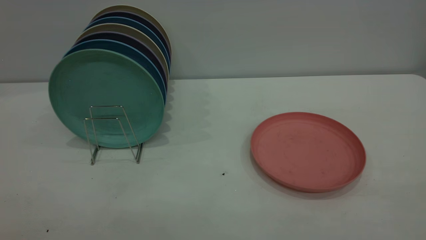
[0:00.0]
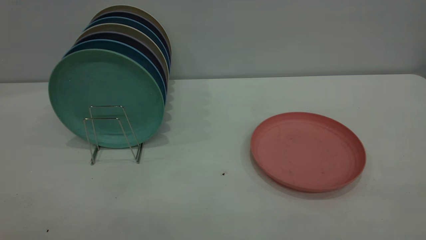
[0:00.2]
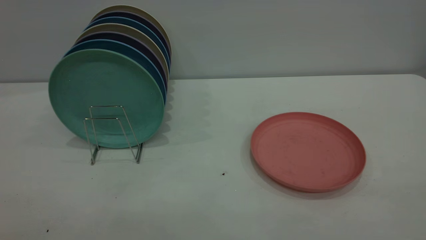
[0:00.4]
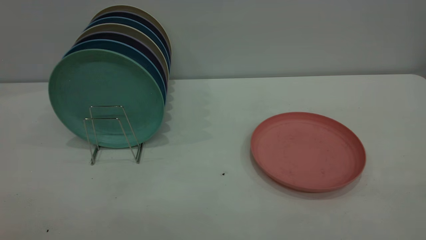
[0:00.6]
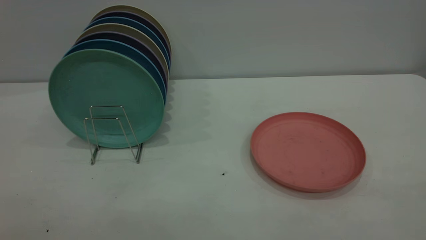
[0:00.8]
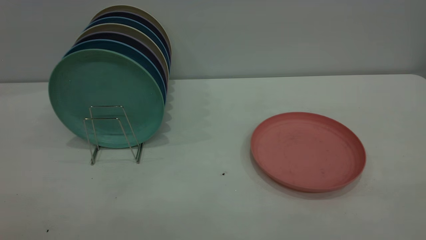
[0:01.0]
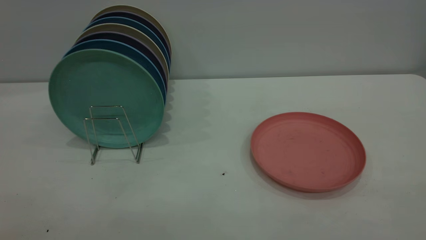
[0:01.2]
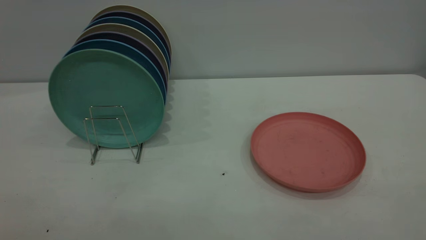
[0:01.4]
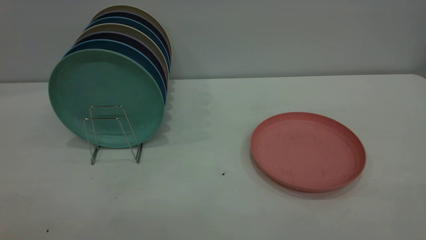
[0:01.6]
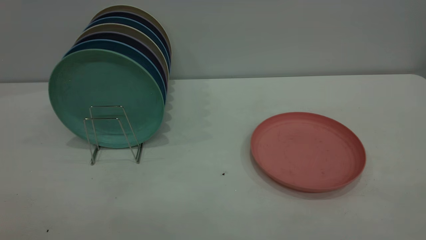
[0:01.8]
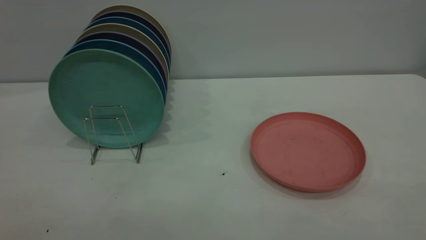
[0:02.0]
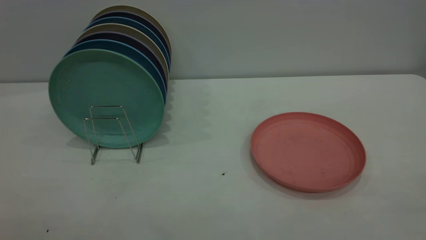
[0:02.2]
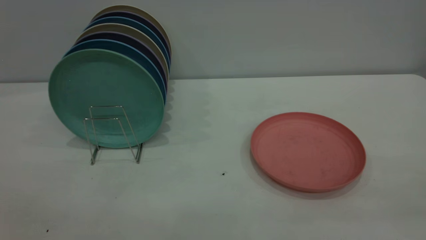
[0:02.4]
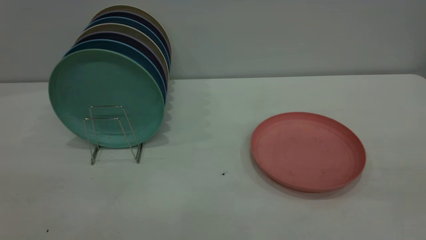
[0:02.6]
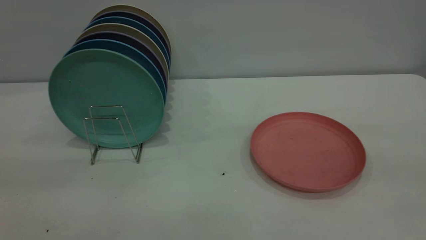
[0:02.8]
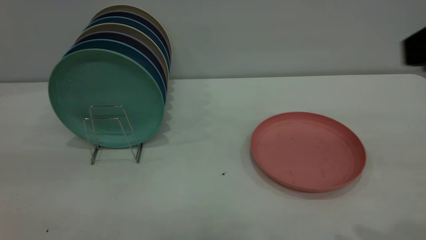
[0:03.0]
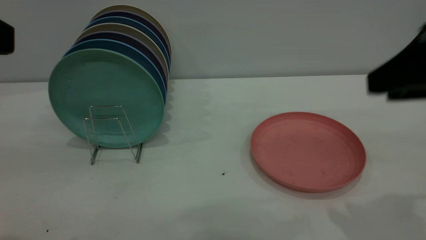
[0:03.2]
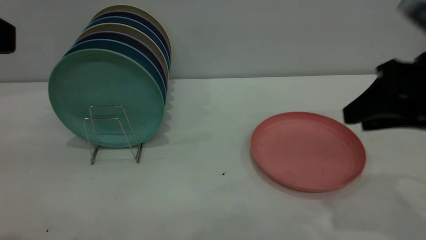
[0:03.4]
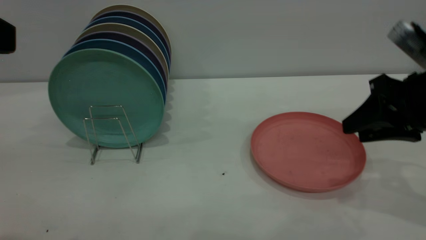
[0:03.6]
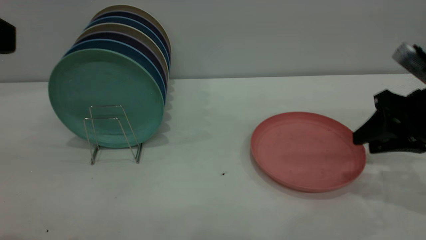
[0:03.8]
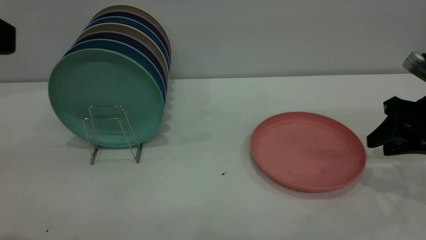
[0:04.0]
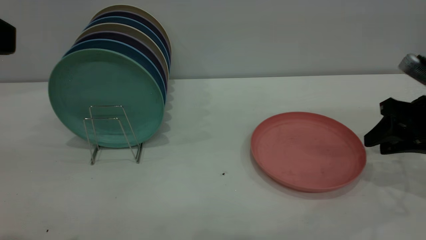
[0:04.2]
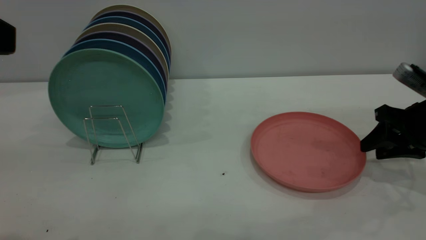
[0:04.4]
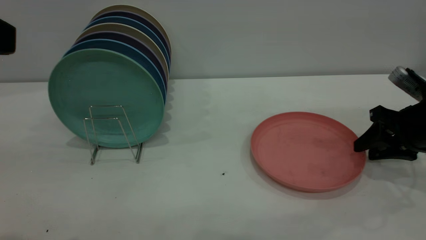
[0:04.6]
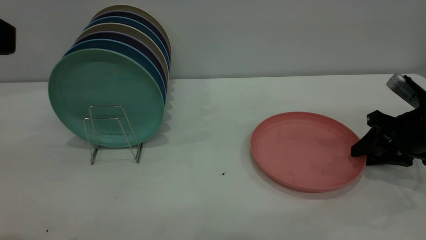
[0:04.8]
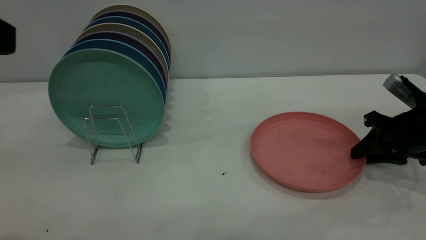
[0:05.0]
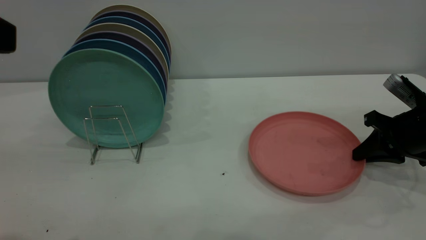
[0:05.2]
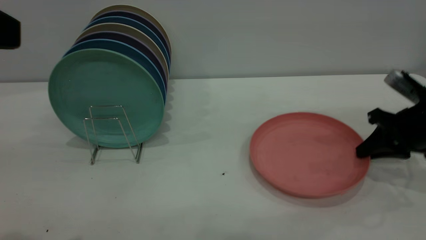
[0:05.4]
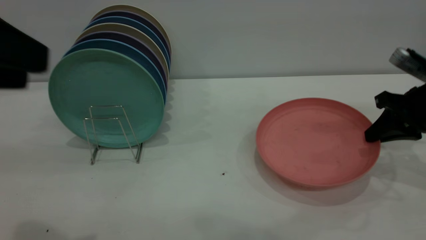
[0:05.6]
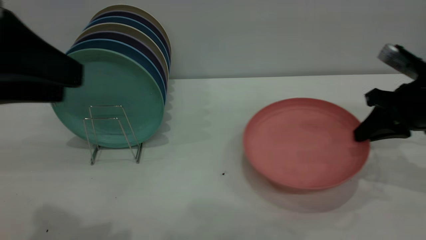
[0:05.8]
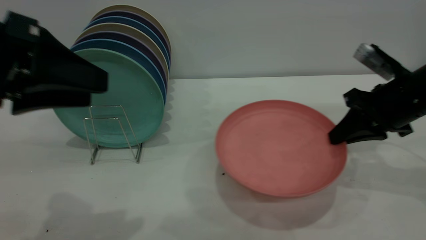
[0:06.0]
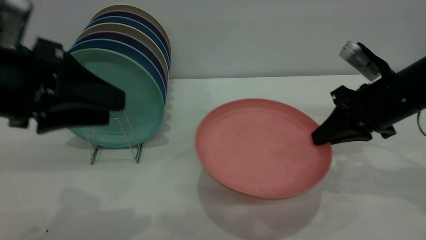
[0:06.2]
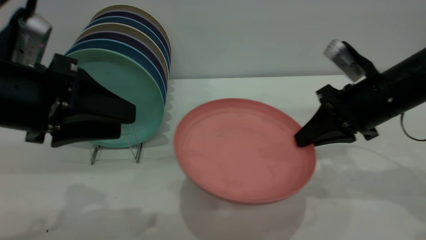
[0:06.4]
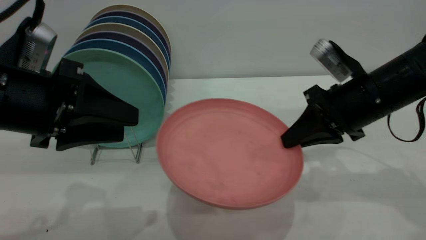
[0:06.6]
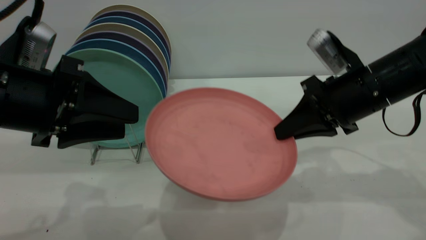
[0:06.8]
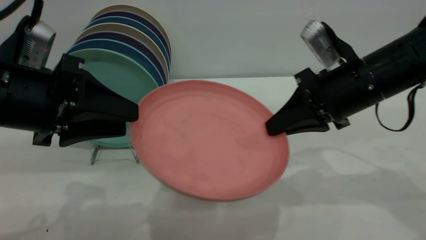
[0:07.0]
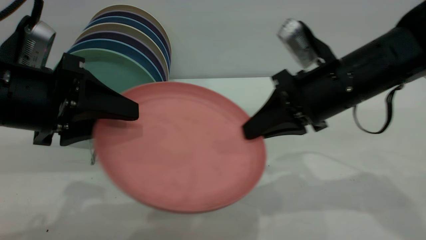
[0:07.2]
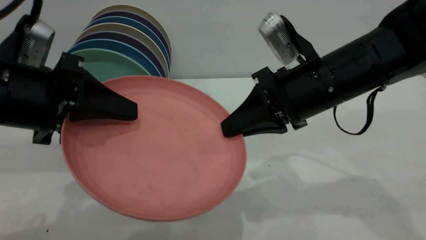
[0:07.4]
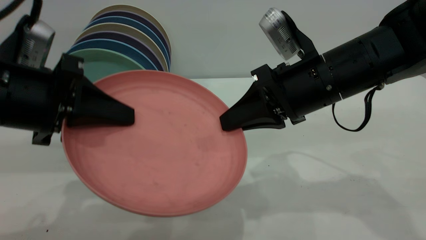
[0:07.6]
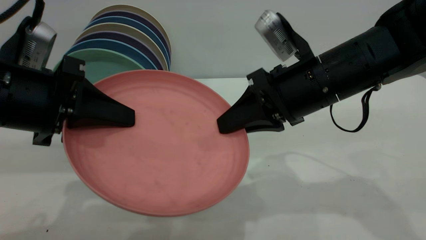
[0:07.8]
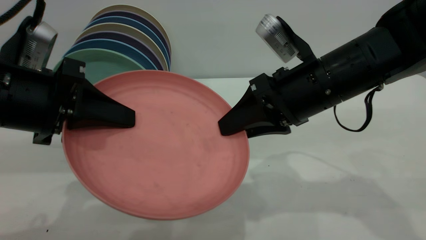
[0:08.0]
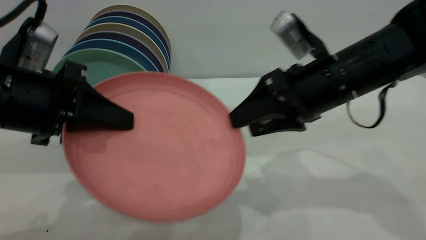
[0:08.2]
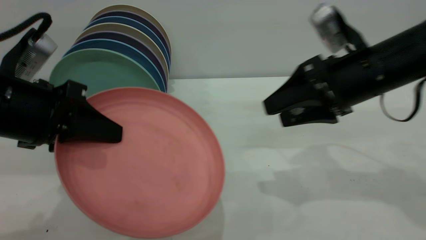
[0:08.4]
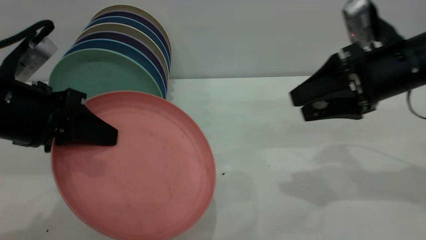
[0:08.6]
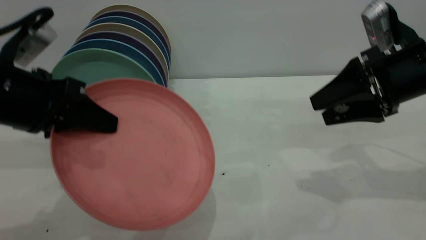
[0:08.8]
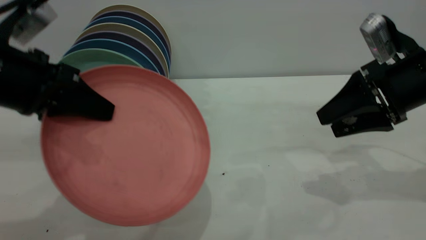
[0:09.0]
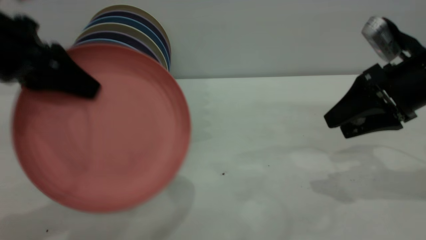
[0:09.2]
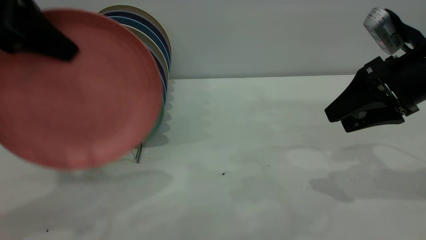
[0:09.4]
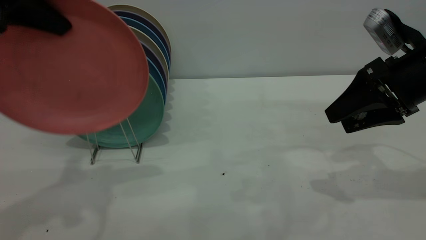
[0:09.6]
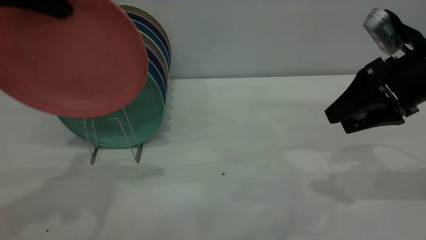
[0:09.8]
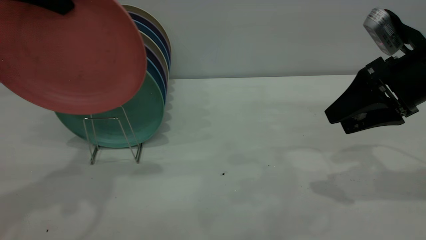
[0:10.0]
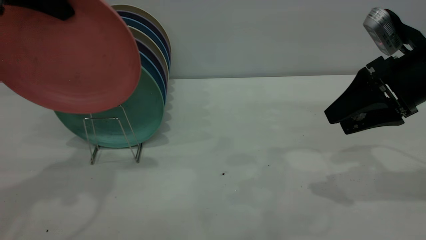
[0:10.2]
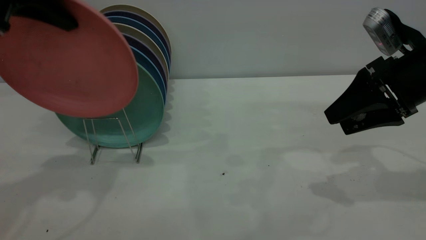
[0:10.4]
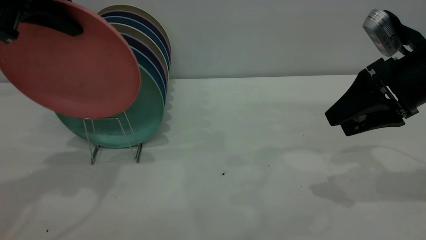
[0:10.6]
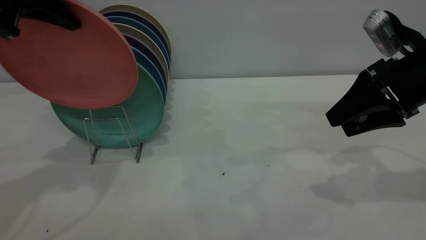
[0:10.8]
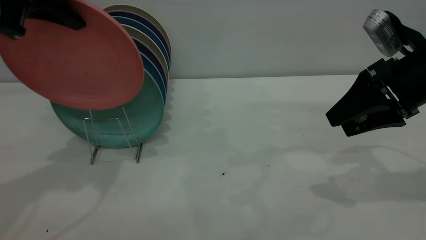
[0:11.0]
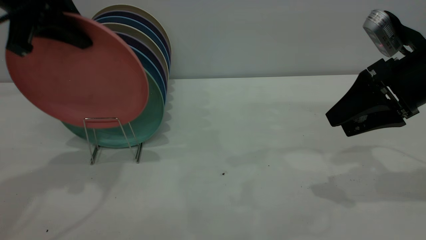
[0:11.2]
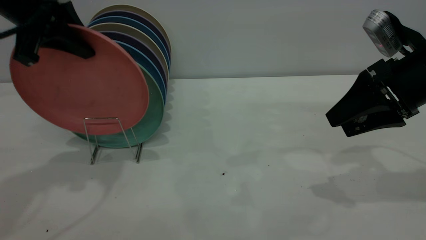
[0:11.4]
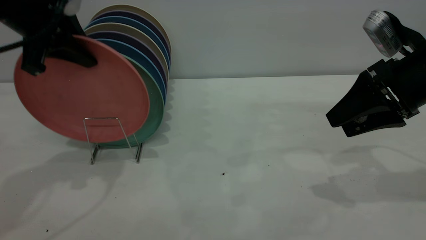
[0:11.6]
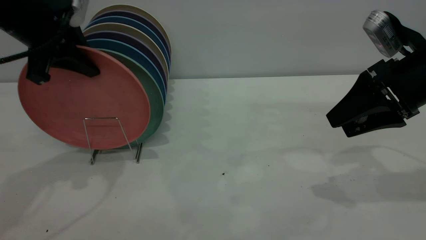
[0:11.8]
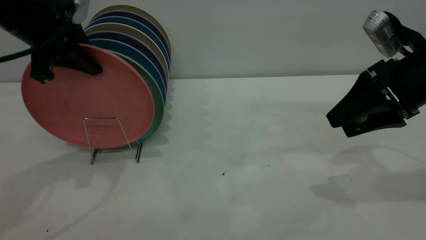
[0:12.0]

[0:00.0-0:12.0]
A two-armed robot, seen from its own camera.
Task of the whole recording: the right gripper grasp the pink plate, the right gripper pass the pink plate to the left gripper, and the left gripper place the pink plate on the plate rack.
Step, 0:00.0 to 0:06.0: Pick up the plate with the right gripper.
Step, 0:06.2 to 0:09.2: Pass the plate from the right gripper to the left gripper.
0:00.0 to 0:01.6: Both grippers stay put.
0:01.6 to 0:03.0: The right gripper is displaced forward by roughly 20 cm.
0:03.0 to 0:04.4: The right gripper shifts approximately 25 cm downward and forward.
0:04.4 to 0:06.0: The right gripper moves to the left, about 5 cm, and closes. Meanwhile the left gripper heads downward and forward, covering some 10 cm.
0:06.0 to 0:07.6: The left gripper heads downward, covering some 5 cm, and closes up. Meanwhile the right gripper heads to the left, covering roughly 15 cm.
0:07.6 to 0:09.0: The right gripper shifts about 15 cm to the right, and opens up.
0:09.0 to 0:10.4: The left gripper is displaced upward and forward by about 15 cm.
0:10.4 to 0:12.0: The left gripper shifts approximately 5 cm downward.

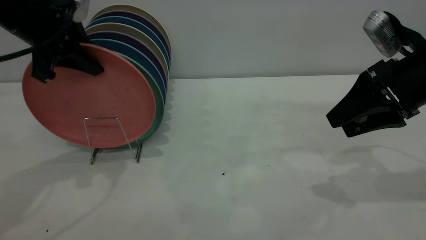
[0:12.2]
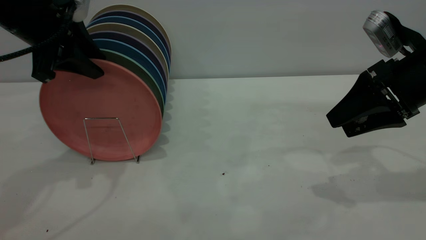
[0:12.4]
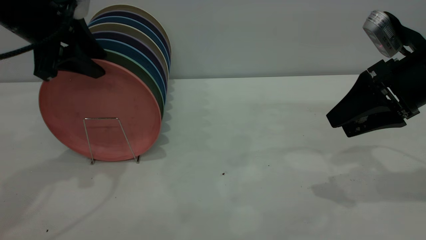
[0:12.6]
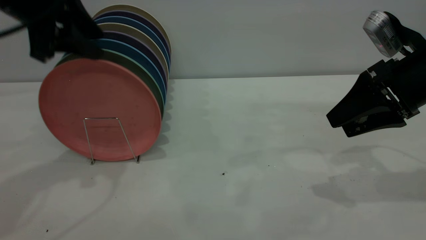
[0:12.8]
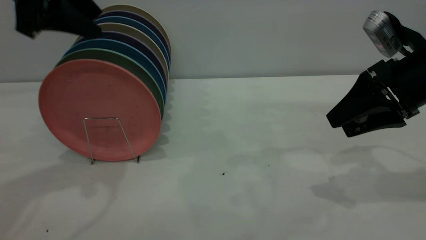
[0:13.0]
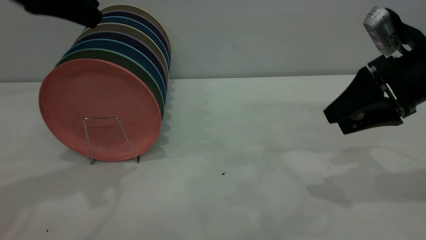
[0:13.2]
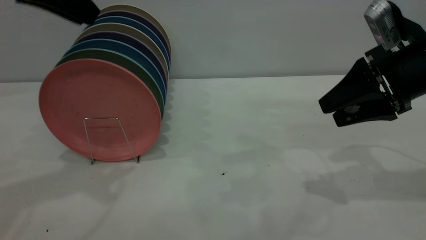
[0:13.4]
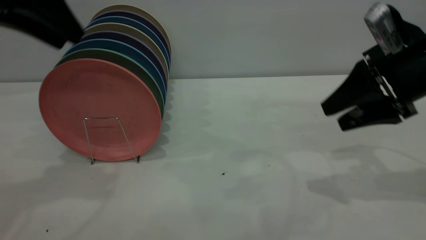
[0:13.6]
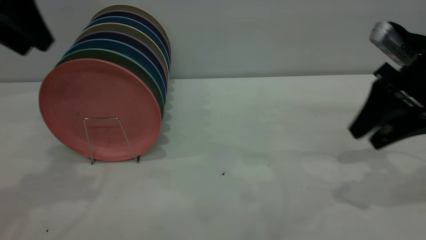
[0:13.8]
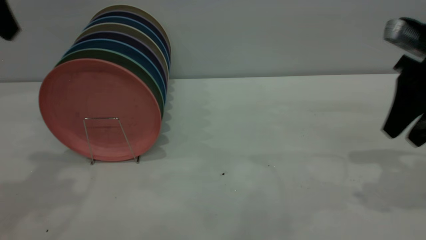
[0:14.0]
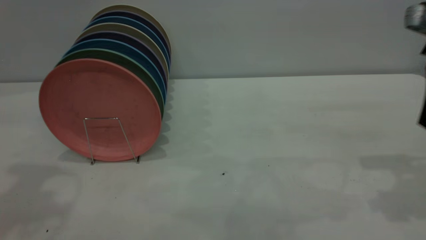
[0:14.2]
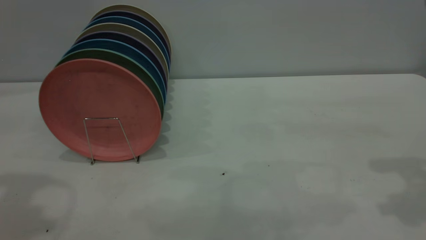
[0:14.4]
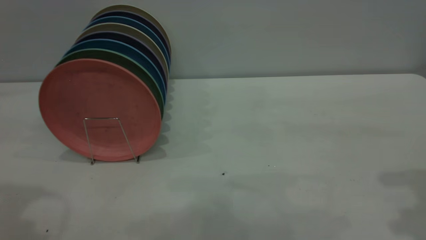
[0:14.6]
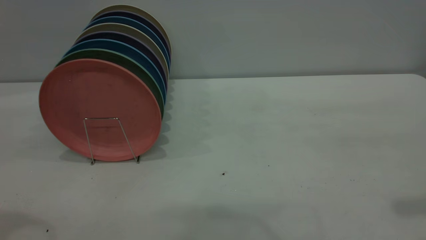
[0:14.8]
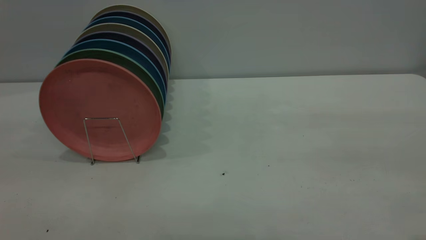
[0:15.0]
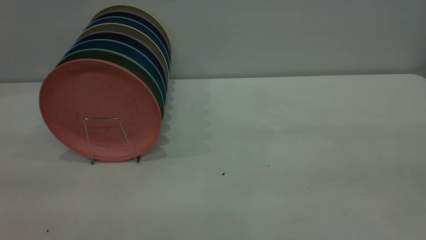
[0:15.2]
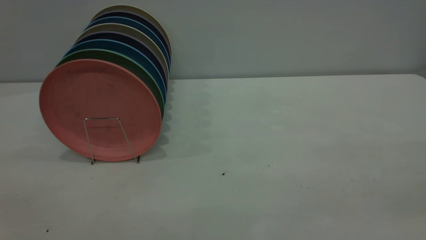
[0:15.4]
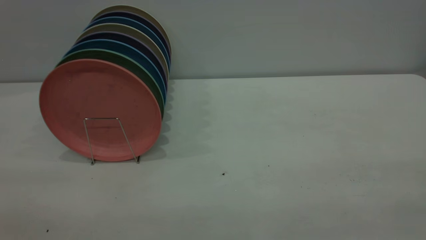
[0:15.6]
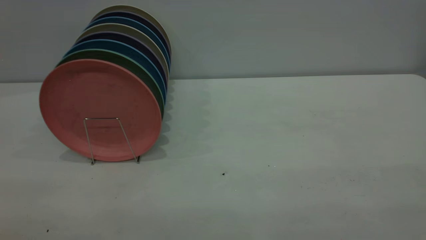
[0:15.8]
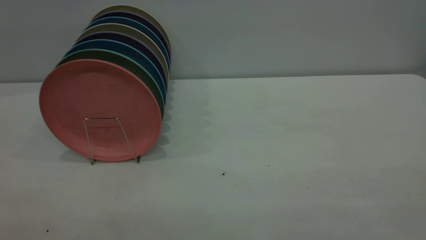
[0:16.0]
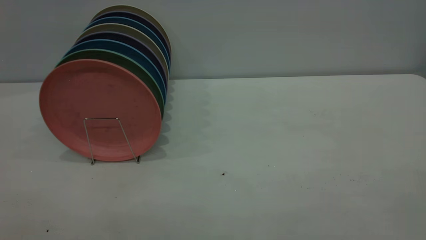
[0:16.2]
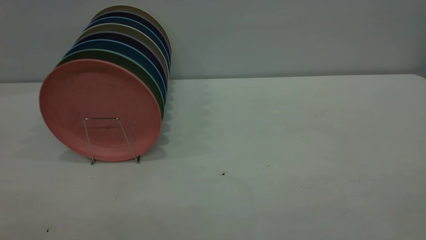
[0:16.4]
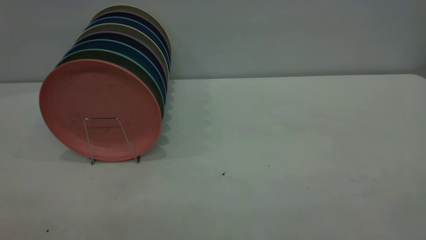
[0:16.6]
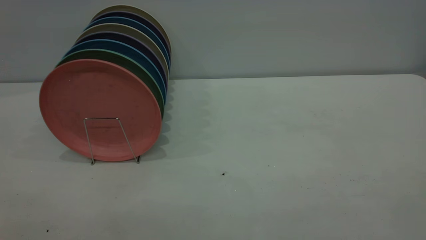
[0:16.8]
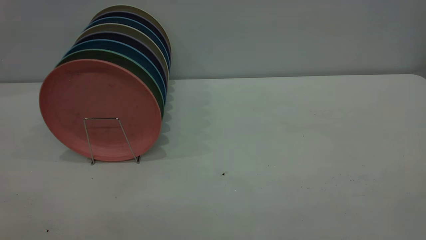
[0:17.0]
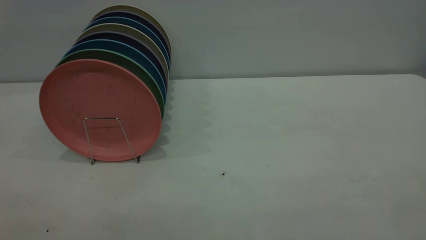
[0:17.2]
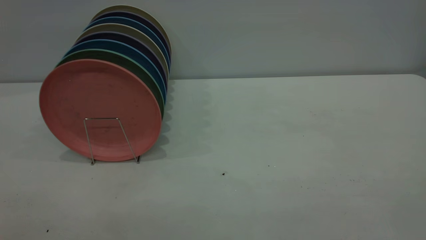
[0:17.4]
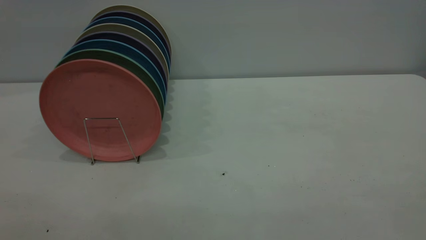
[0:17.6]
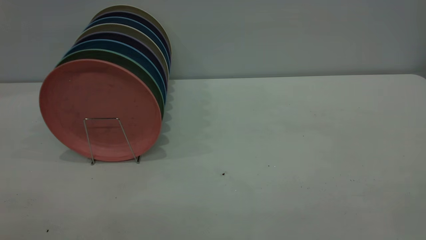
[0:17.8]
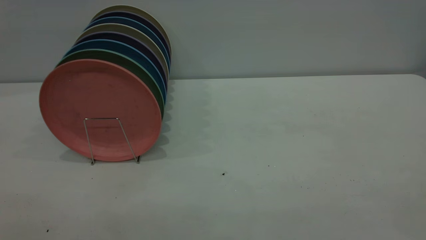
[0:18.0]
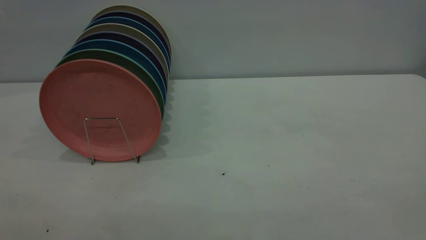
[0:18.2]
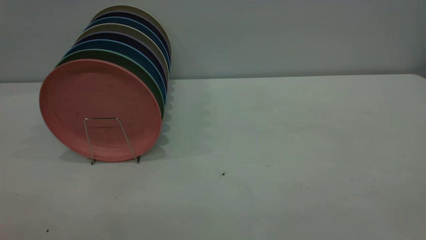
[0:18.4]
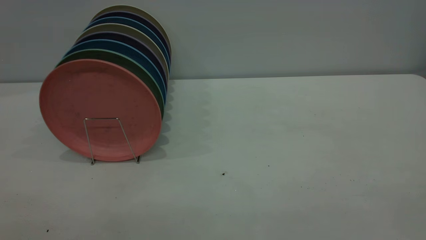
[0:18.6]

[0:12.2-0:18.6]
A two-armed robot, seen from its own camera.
Task of the whole recording: the right gripper grasp the pink plate, the right gripper pass the pink plate to the left gripper, and the left gripper place the pink plate on the plate rack.
0:12.2 to 0:13.8: The left gripper shifts about 10 cm upward and backward, and opens.
0:13.8 to 0:15.4: The right gripper shifts roughly 30 cm backward and upward. The left gripper goes approximately 25 cm backward.
